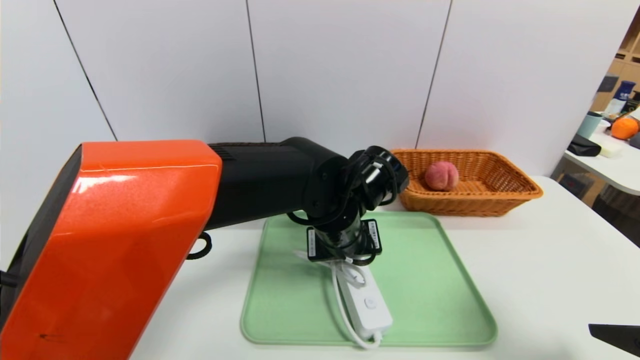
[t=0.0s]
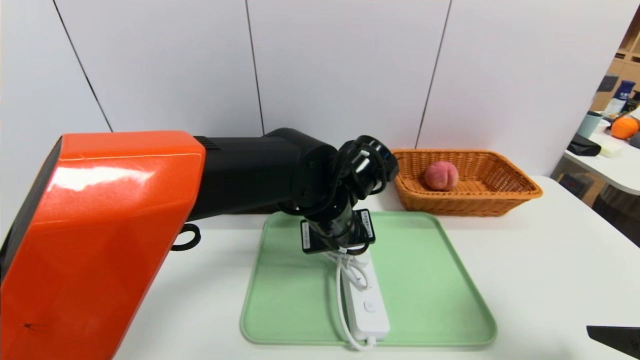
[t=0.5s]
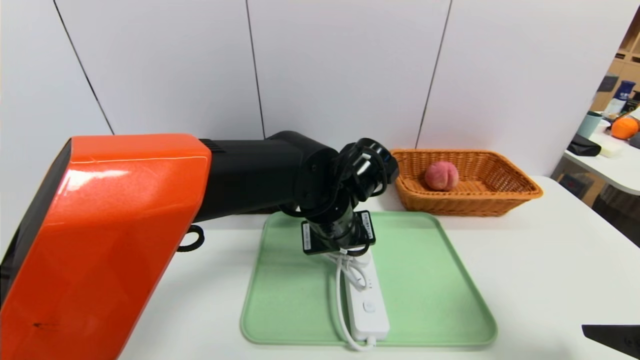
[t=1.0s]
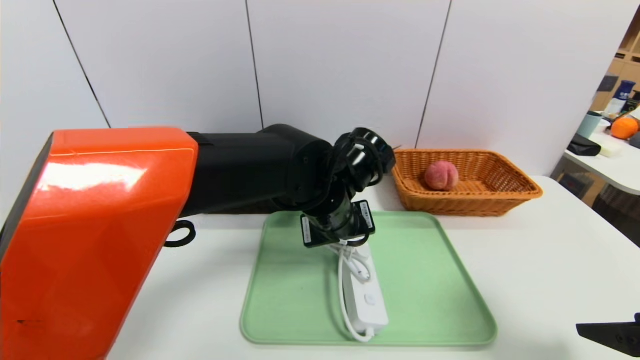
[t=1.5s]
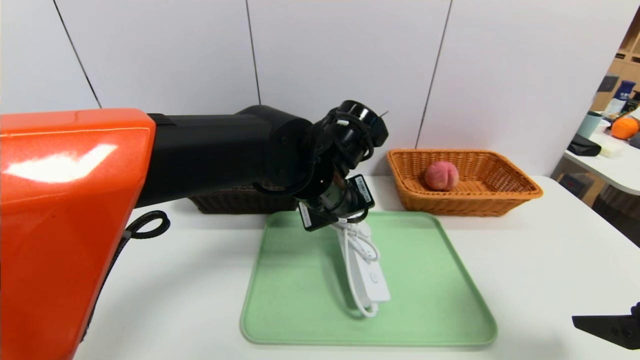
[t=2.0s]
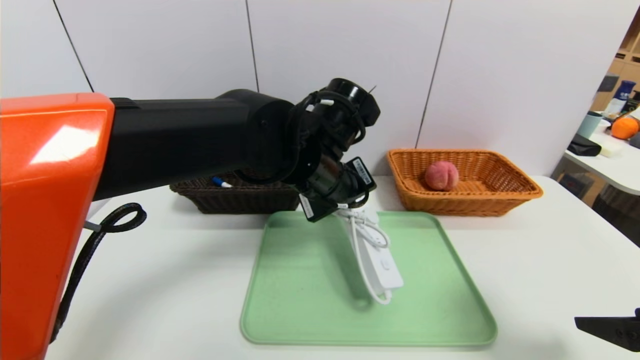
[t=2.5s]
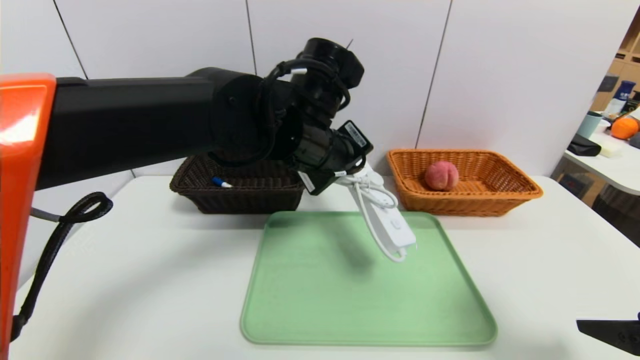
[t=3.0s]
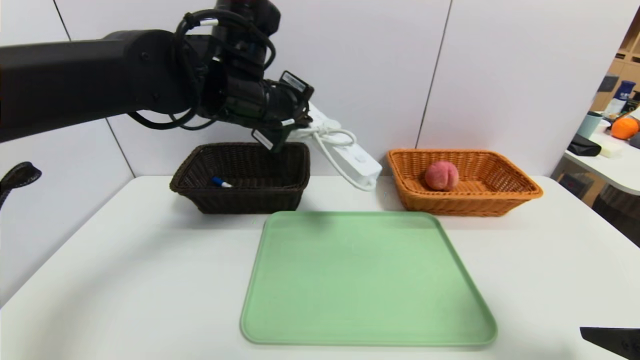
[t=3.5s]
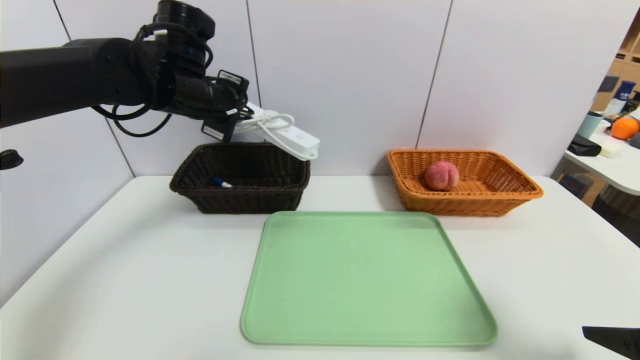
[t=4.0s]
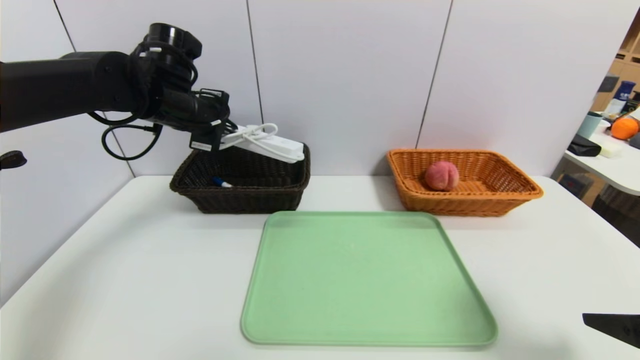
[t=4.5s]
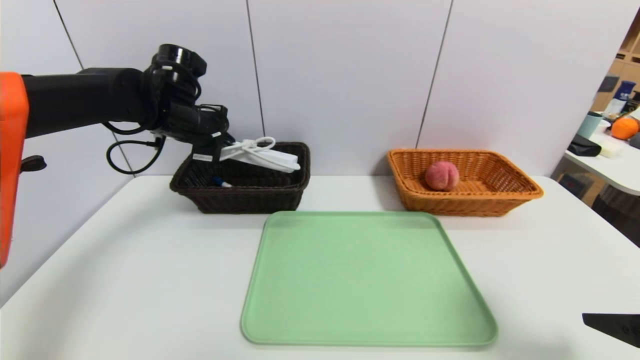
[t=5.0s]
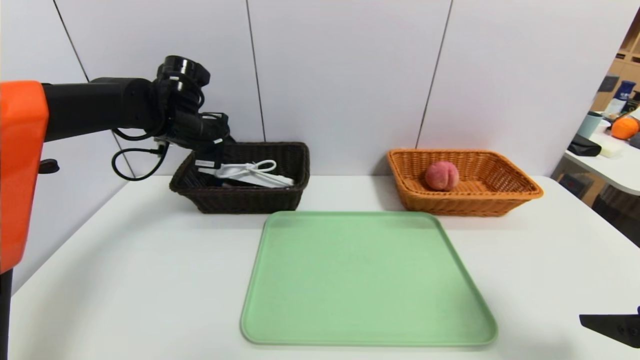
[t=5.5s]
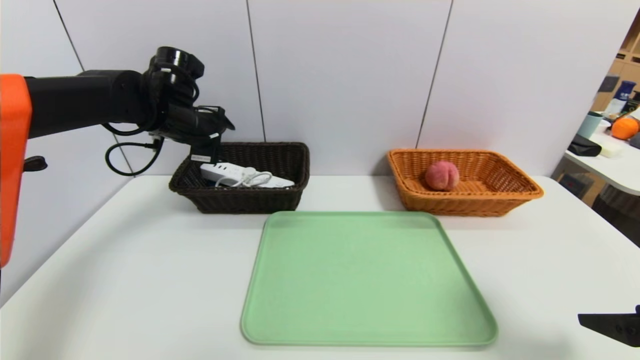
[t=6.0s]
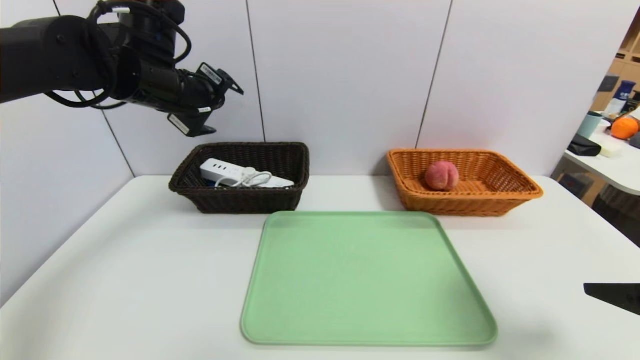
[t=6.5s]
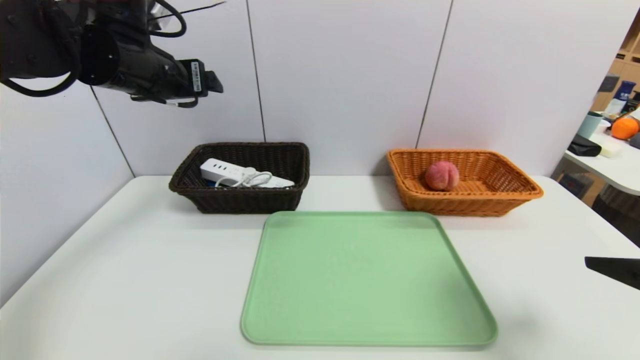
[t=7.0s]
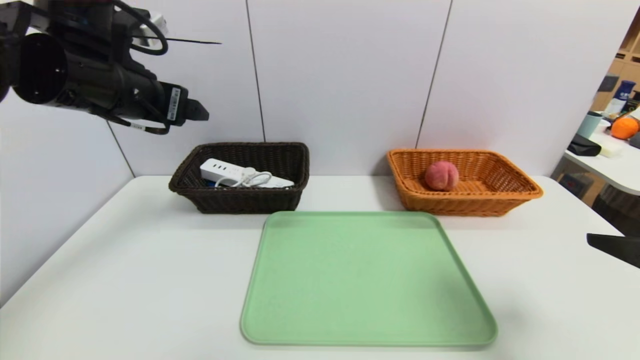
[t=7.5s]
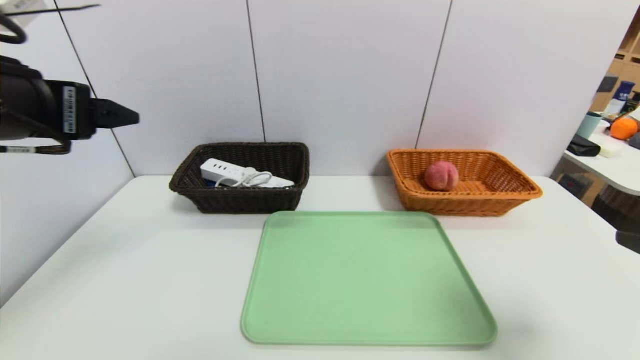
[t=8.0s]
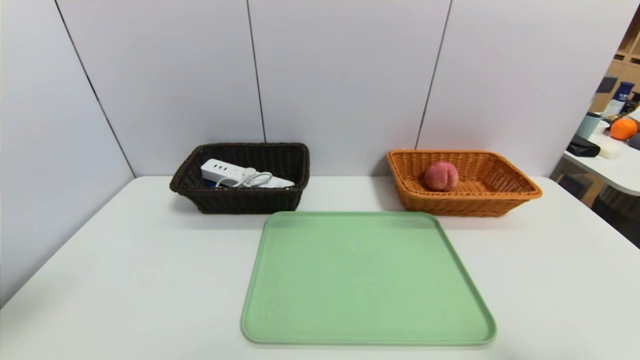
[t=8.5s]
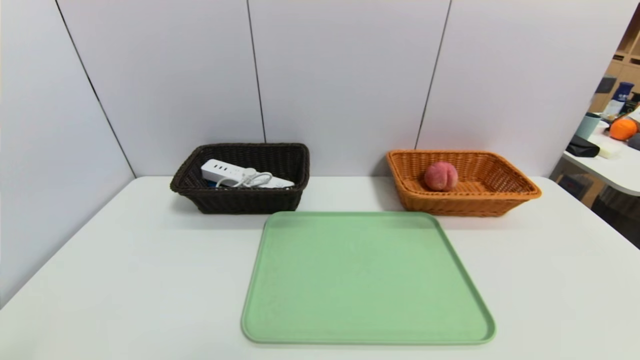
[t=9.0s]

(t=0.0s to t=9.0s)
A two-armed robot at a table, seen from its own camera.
Task of the whole recording: place the food in the right basket with the right gripper, and place the non food items in the left basket with the left gripper.
Step, t=0.0s - t=6.0s: Grasp the power strip and put it in the left basket.
t=0.0s - t=2.0s: The left gripper shifts by approximately 5 cm, and closes its fingers.
t=2.0s - t=4.5s: The left gripper is displaced to the left and forward by approximately 25 cm.
t=4.5s - t=7.0s: The left gripper heads upward and backward, covering about 10 cm, and opens its fingers.
t=7.0s - t=9.0s: The right gripper moves backward, some 15 cm. Meanwhile the left gripper moves backward, roughly 35 cm.

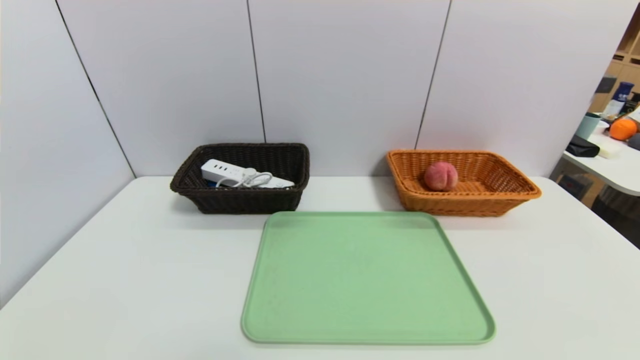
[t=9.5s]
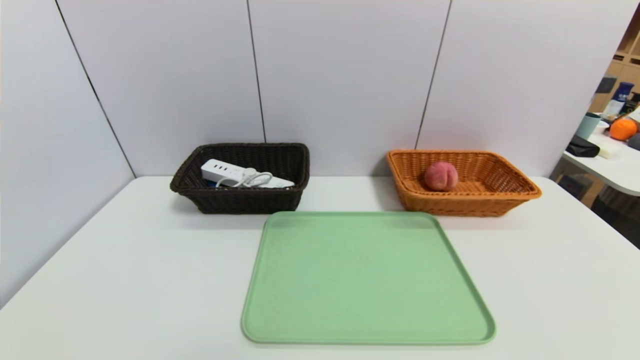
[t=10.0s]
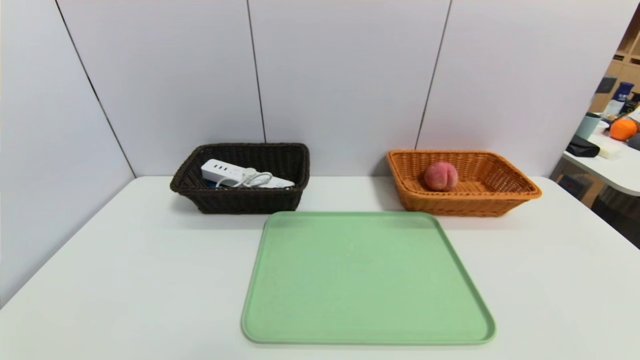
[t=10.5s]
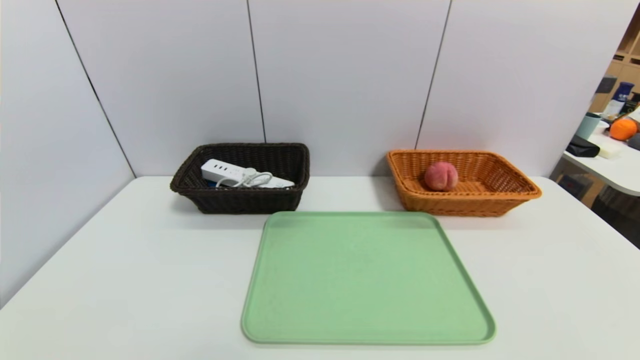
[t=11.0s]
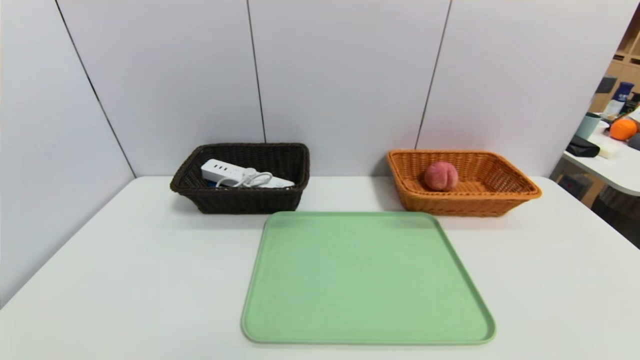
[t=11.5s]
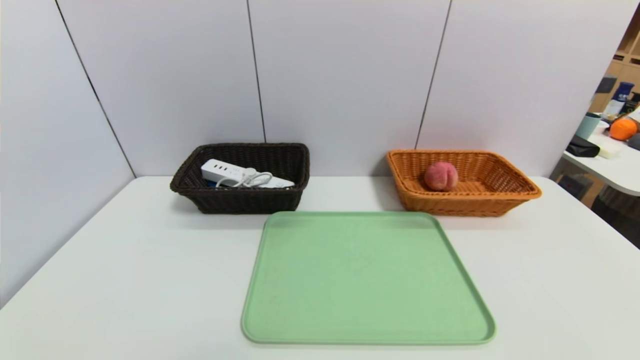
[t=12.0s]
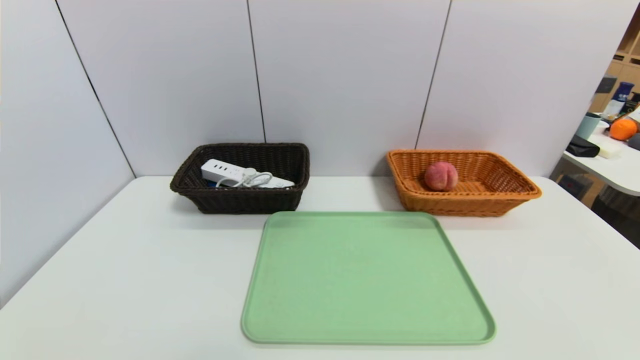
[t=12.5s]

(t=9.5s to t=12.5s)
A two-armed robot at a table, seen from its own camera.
Task of the whole recording: place the food in the right basket with the right gripper, and place the non food items in the left basket with the left gripper.
t=11.0s - t=12.5s: Both grippers stay put.

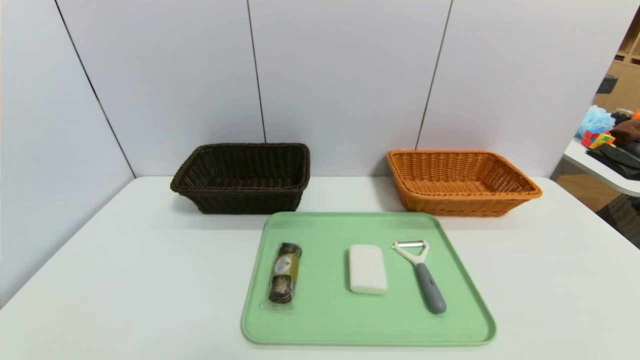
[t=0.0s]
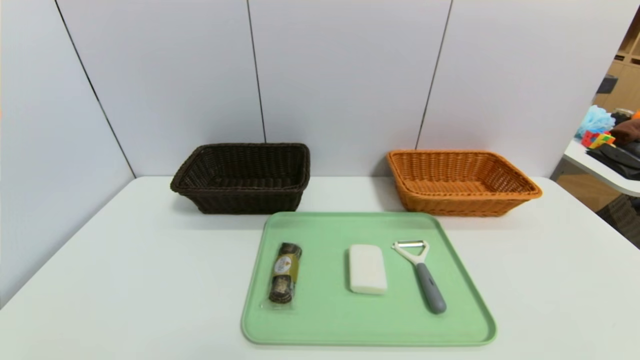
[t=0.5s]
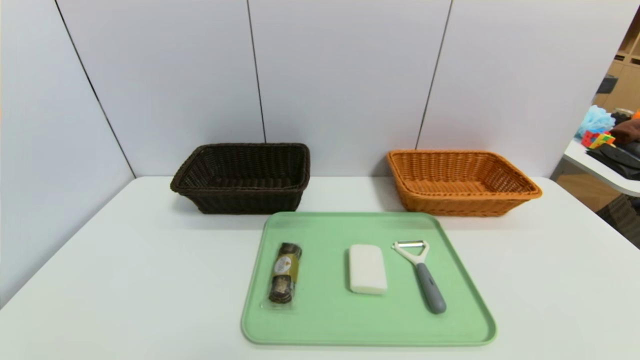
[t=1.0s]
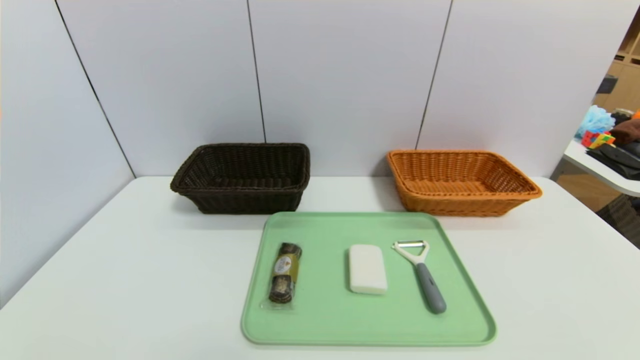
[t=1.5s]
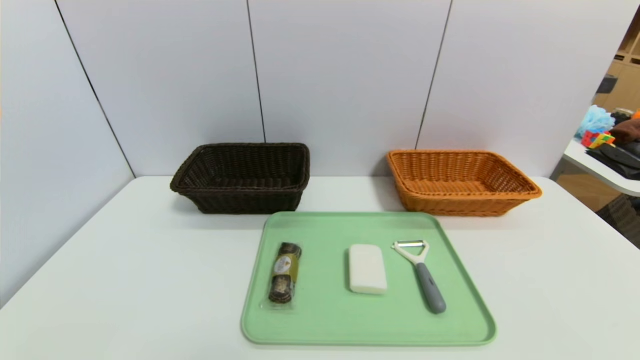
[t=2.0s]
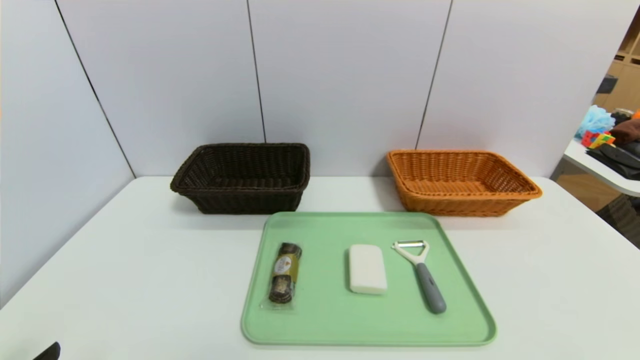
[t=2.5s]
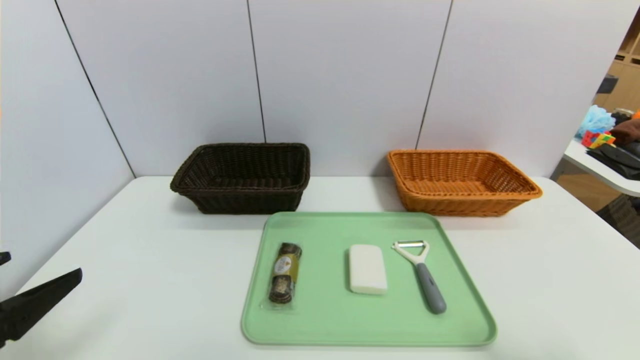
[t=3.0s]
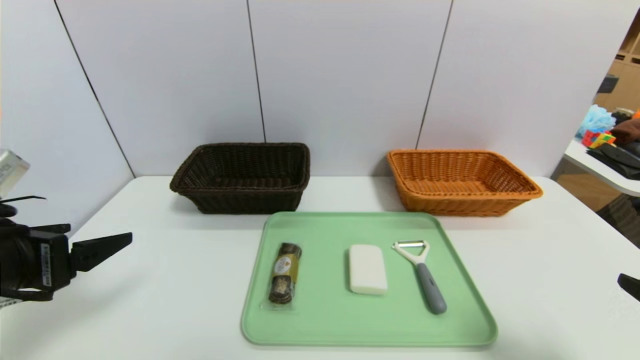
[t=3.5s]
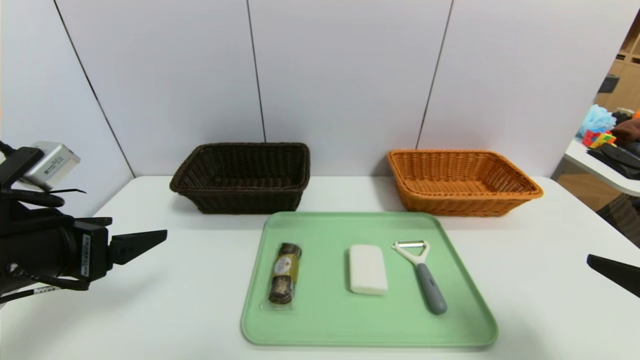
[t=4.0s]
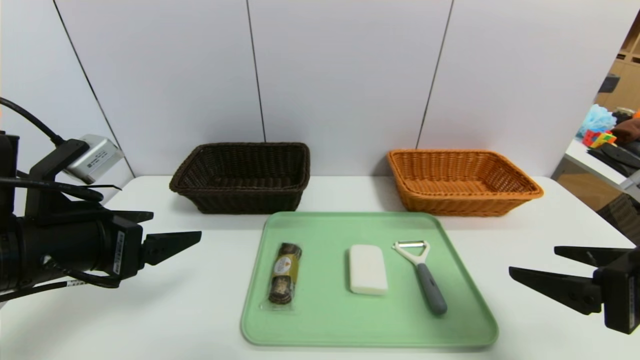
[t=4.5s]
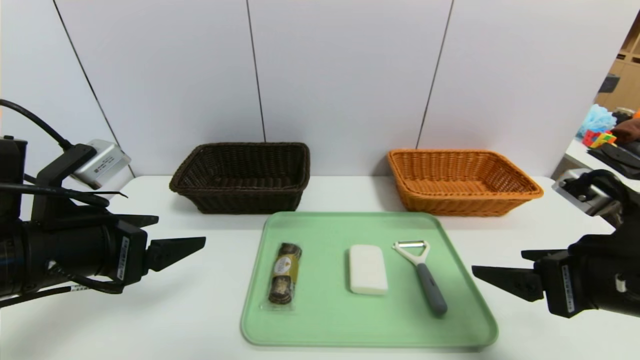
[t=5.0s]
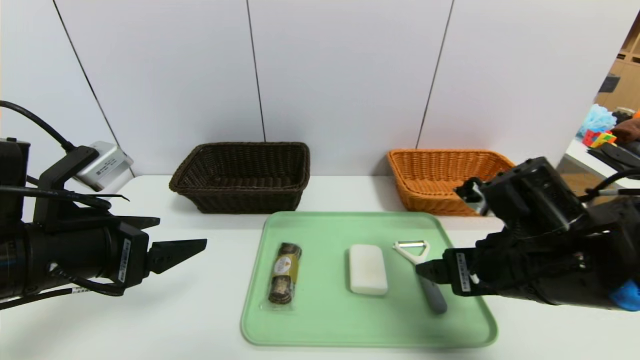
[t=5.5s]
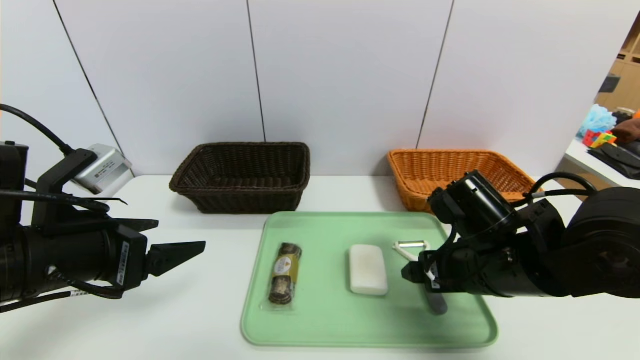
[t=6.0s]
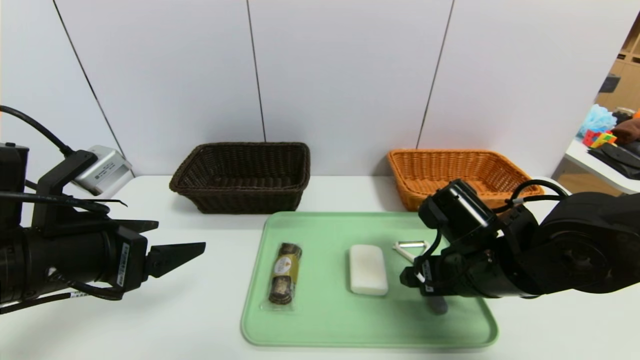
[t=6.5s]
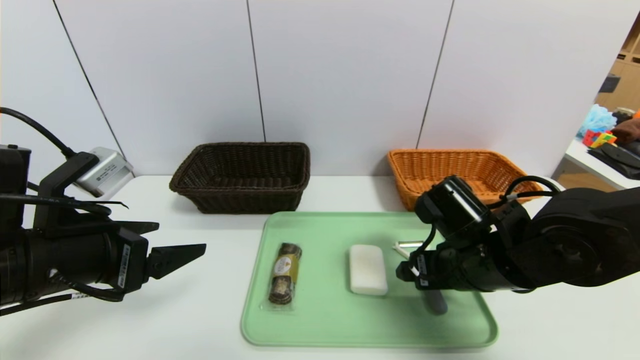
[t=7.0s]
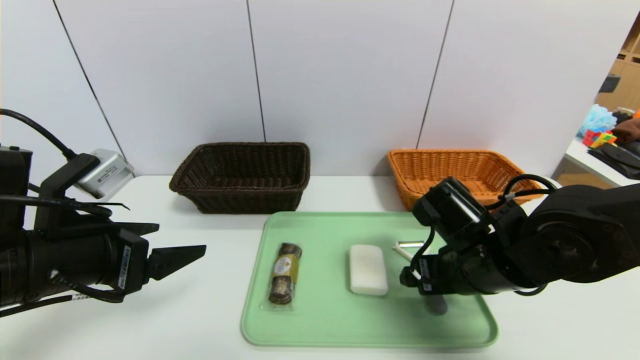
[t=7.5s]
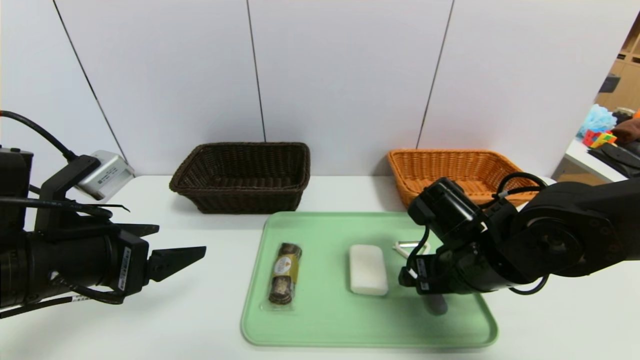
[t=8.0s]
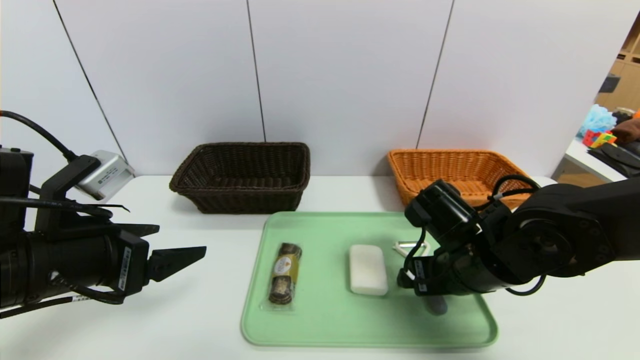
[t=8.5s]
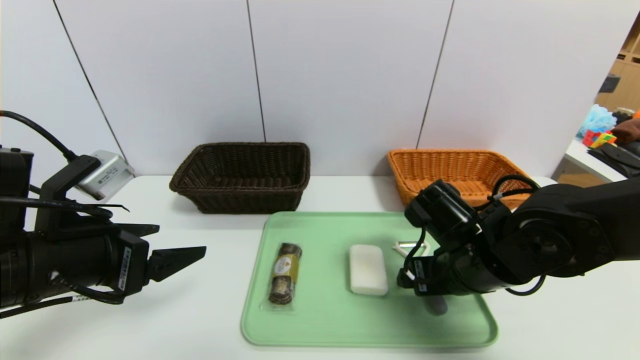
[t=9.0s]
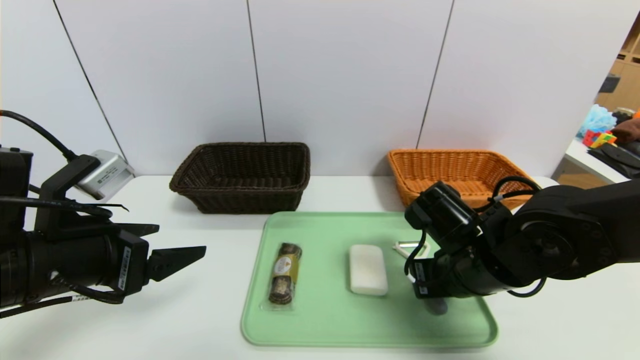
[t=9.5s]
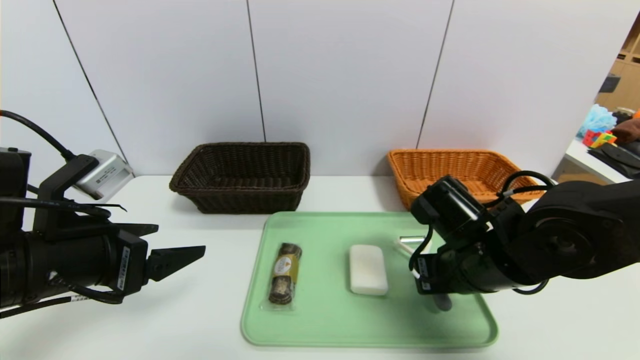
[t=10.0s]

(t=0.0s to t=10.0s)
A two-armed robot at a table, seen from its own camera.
Task of the whole recording: place the food in the right basket with the right gripper, and place the non food items in the left basket with the left gripper.
t=2.0s - t=4.0s: The right gripper shifts about 15 cm upward and forward; the left gripper is displaced forward and upward by approximately 20 cm.
t=4.0s - t=6.0s: The right gripper is displaced to the left, forward and downward by approximately 20 cm.
t=6.0s - t=8.0s: The grippers make only small movements.
t=8.0s - t=10.0s: The right gripper closes up.
